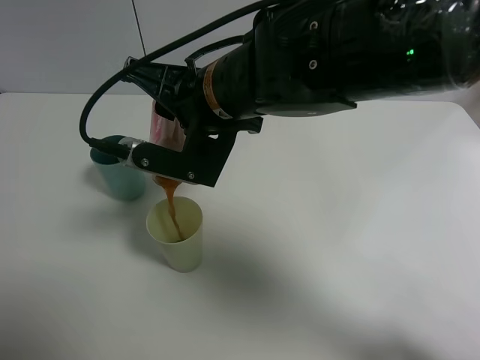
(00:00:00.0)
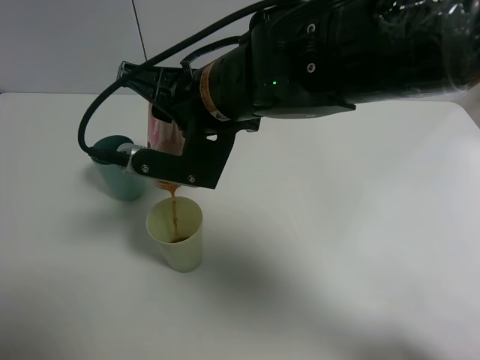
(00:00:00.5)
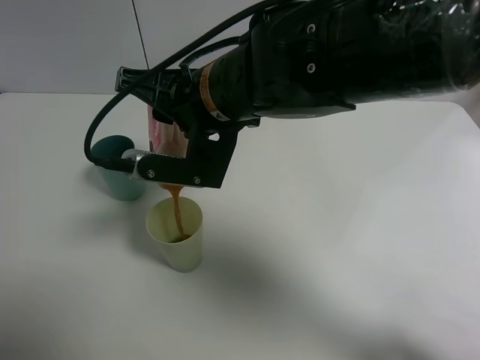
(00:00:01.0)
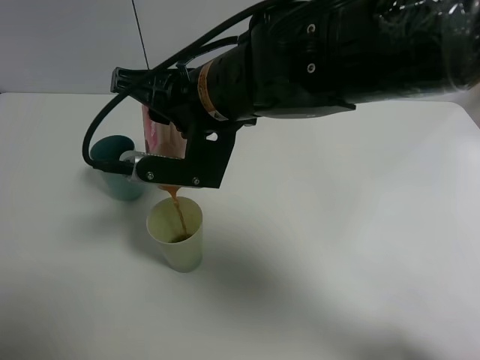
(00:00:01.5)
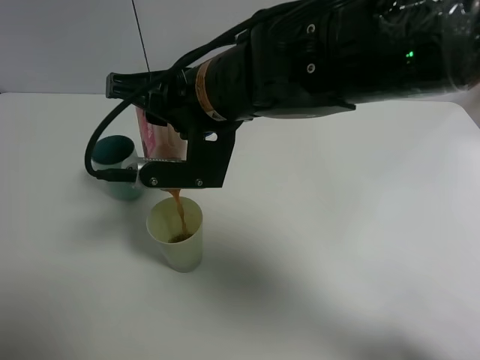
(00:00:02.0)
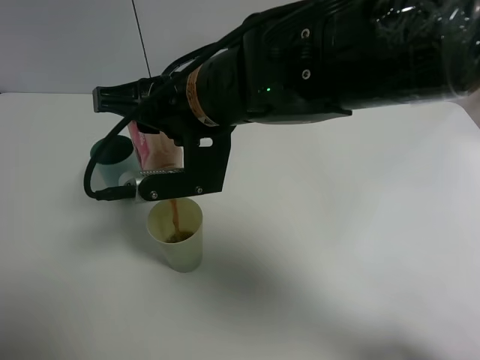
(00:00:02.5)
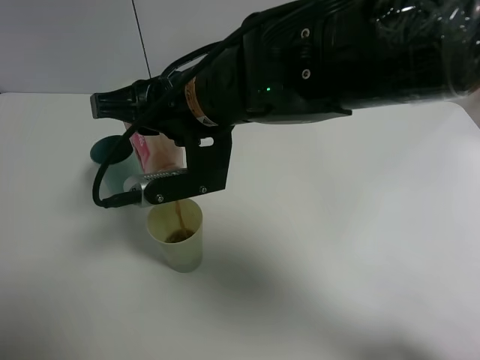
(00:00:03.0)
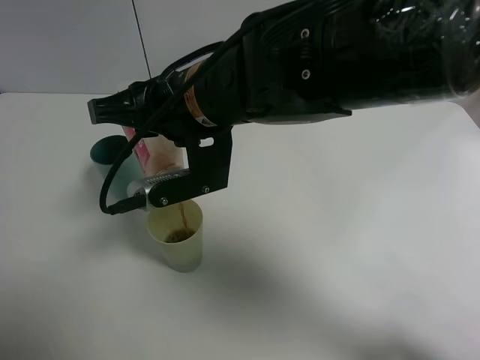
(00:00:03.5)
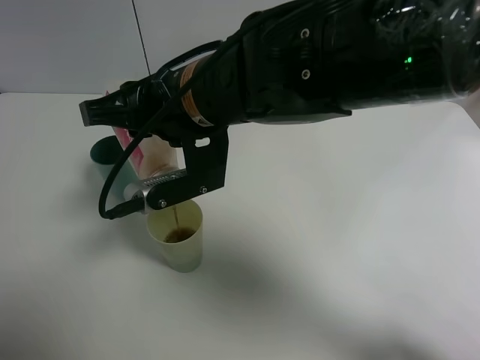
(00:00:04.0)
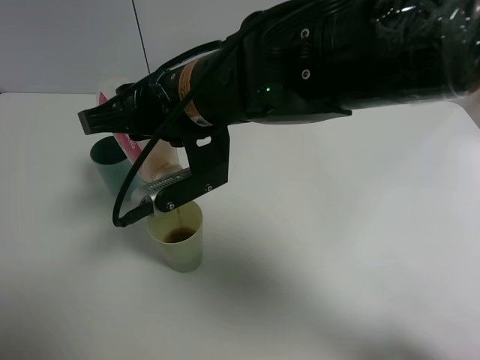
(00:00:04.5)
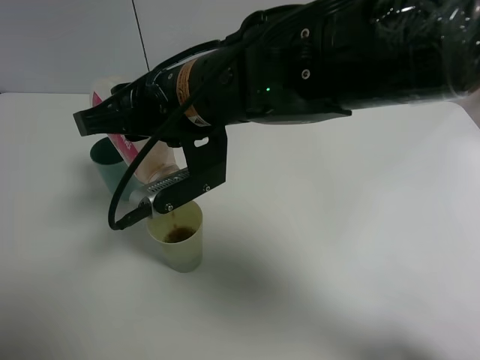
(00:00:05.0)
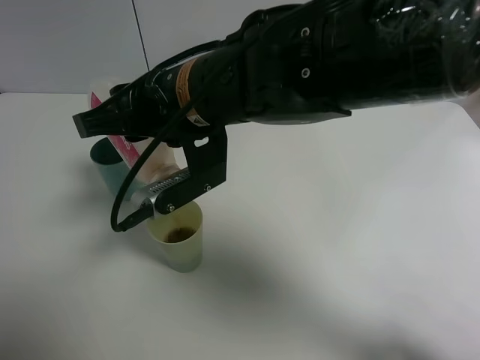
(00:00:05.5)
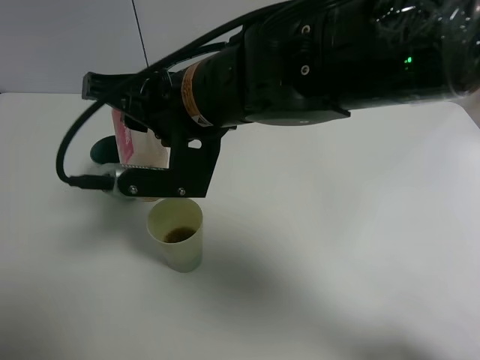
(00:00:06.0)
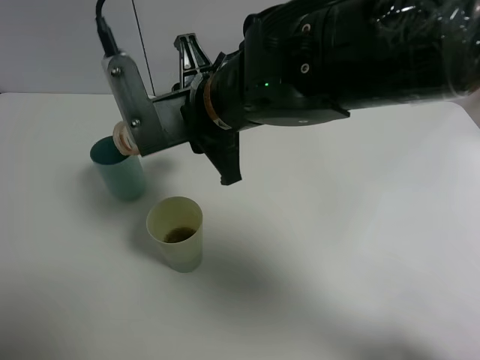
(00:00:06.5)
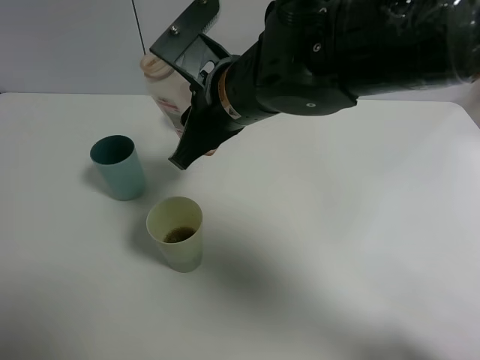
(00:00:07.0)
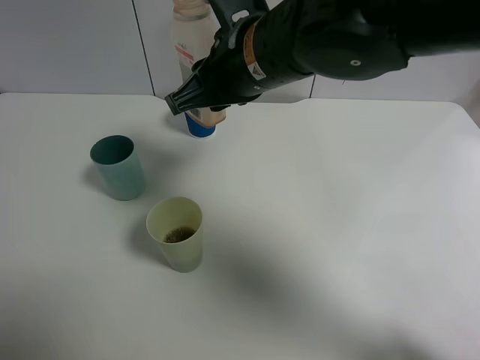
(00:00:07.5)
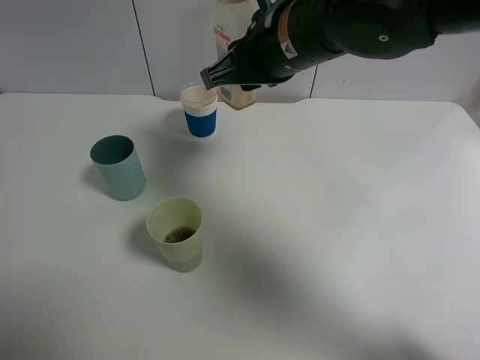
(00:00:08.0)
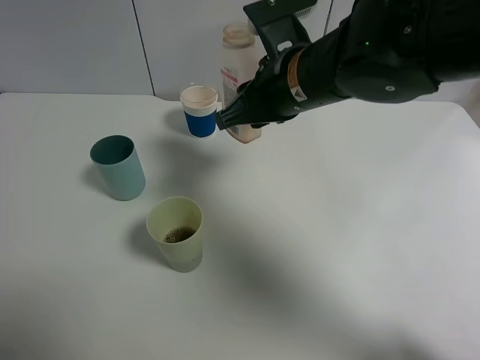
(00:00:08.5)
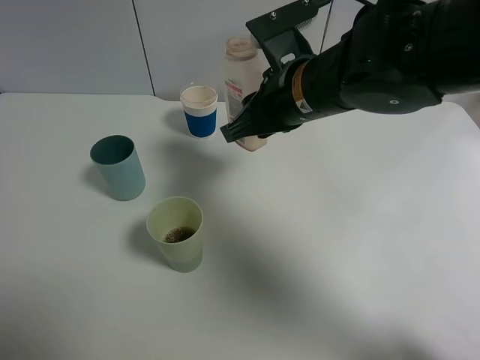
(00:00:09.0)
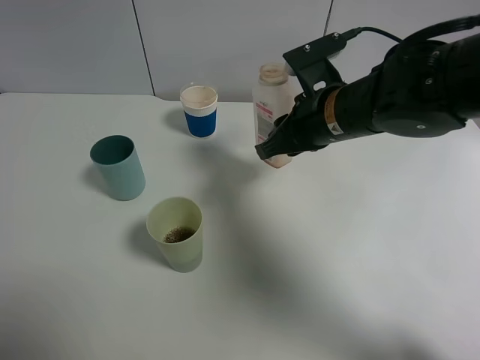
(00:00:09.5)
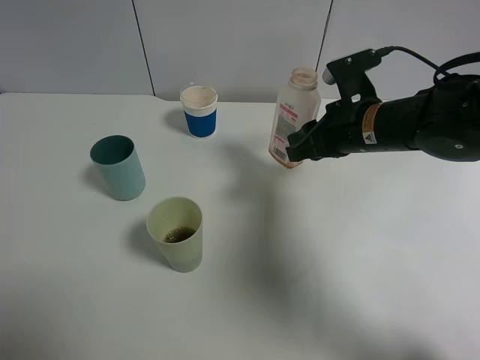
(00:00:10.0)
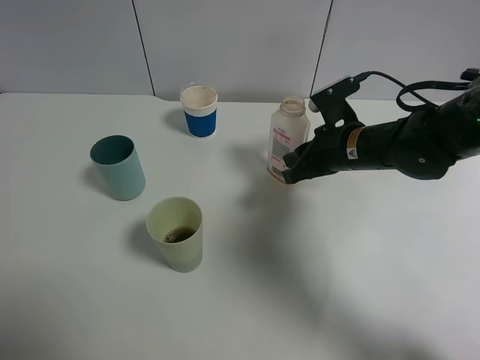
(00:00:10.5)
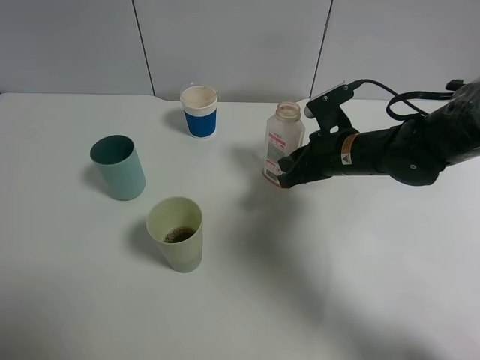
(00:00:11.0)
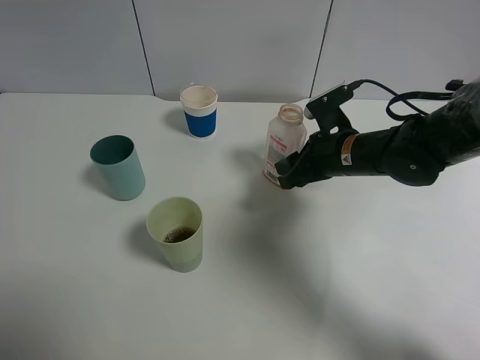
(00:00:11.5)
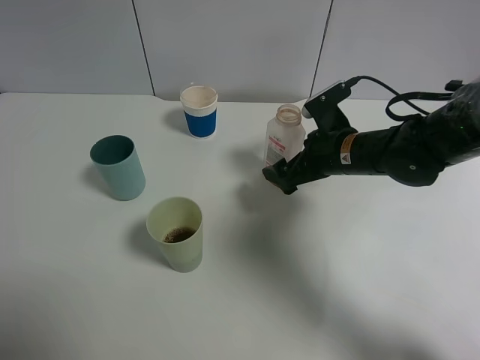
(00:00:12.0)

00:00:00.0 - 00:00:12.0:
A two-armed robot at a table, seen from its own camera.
Task of the whole recording: use a gripper to hold the bottle of the drink and pour it into a random cup.
Step, 00:00:00.0 - 00:00:05.5: Pour the cranberry juice into the cyan cup with the right gripper.
Step, 00:00:06.0 - 00:00:11.5: Place the cranberry juice bottle on the table with the right gripper.
00:00:00.0 - 00:00:02.0: There are only small adjustments of the grippers.
00:00:02.0 - 00:00:04.0: The grippers stay close to where they were, moving slightly.
00:00:06.0 - 00:00:08.0: The right gripper travels to the right and forward by about 10 cm.
00:00:08.0 - 00:00:10.0: The right gripper heads to the right and downward, covering roughly 15 cm.
00:00:10.0 - 00:00:12.0: The right gripper goes roughly 5 cm downward, and opens.

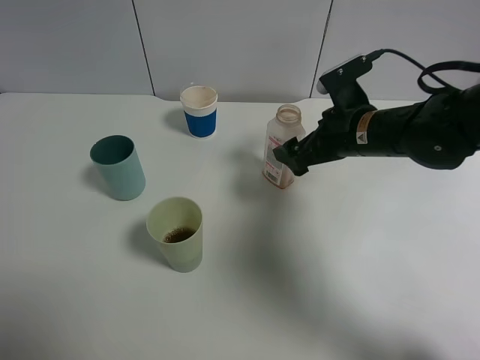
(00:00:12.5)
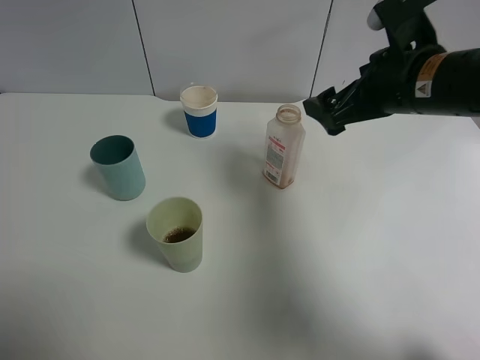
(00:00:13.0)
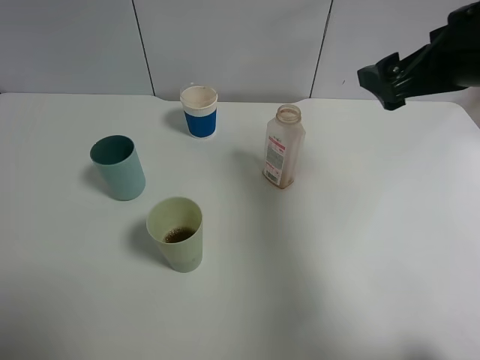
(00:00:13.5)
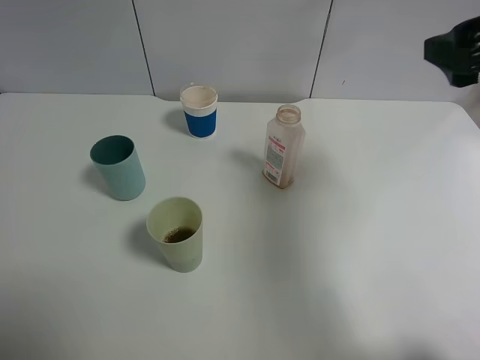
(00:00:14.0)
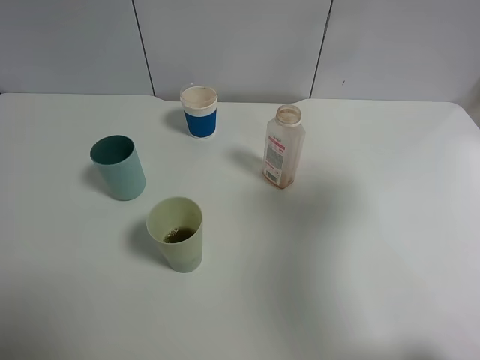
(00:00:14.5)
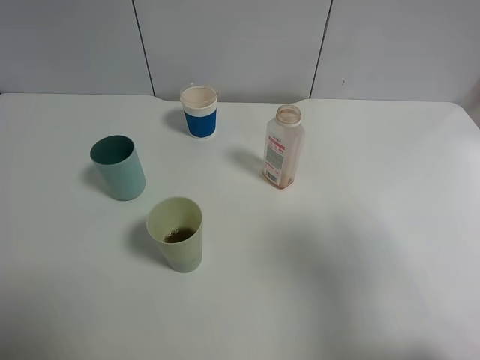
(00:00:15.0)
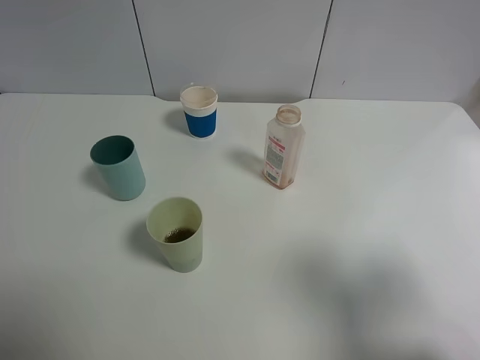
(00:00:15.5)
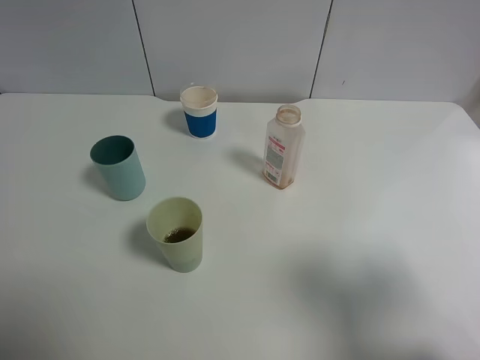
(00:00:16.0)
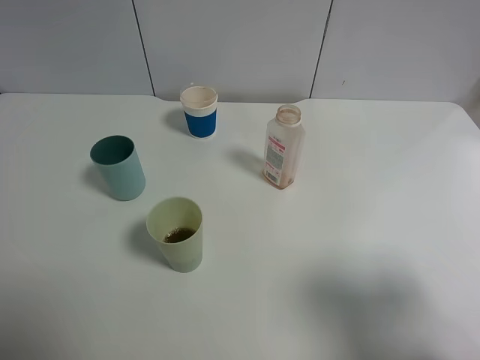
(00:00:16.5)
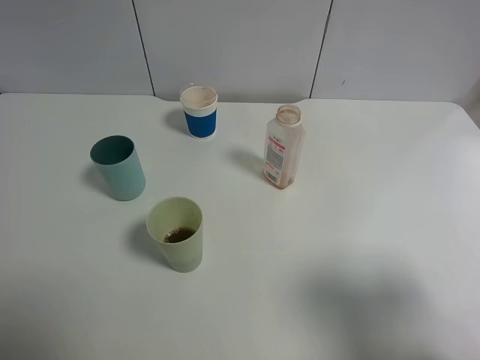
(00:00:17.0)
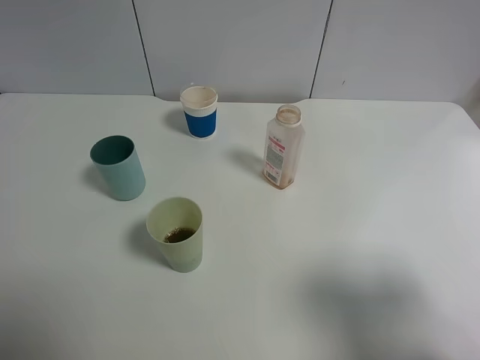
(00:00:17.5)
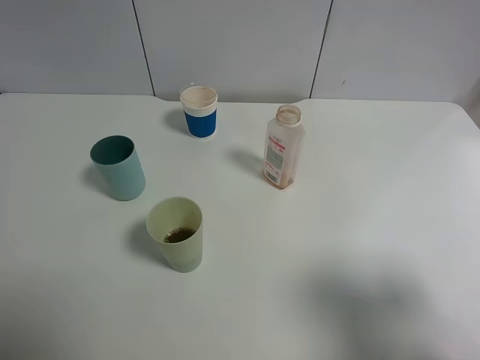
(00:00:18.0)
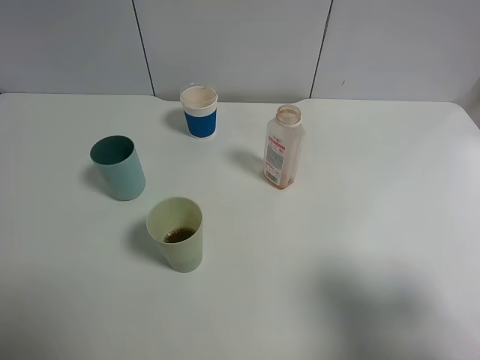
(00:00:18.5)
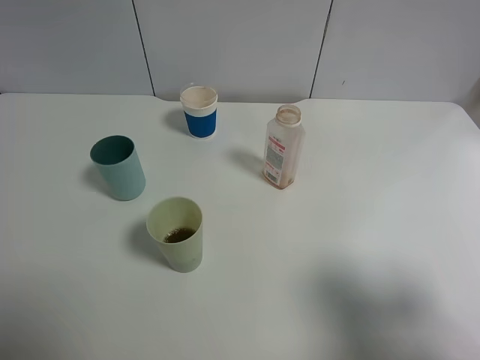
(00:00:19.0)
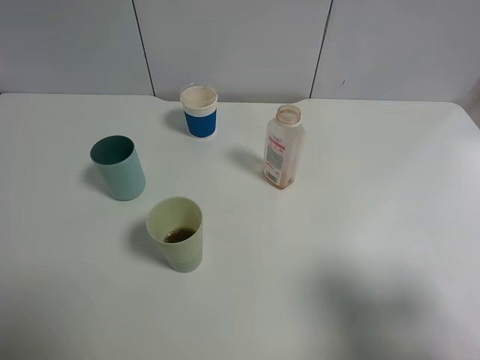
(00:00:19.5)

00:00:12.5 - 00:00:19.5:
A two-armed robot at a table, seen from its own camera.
Task of the whole recording: use a gripper to hold the bottle of the drink and pour it into a random cup.
00:00:12.5 - 00:00:14.5: The right gripper is displaced upward, backward and to the right by some 30 cm.
00:00:14.5 - 00:00:16.0: The right gripper is displaced backward and downward by some 15 cm.

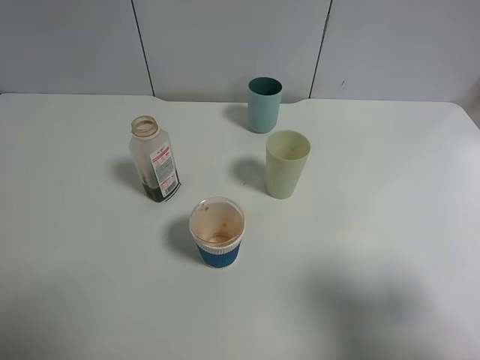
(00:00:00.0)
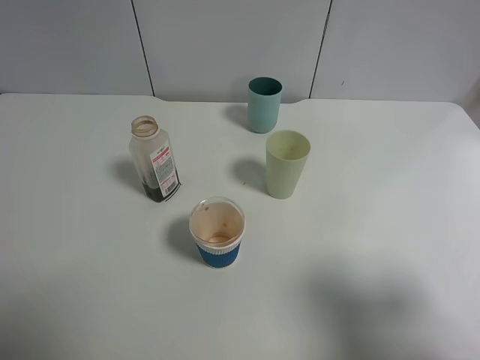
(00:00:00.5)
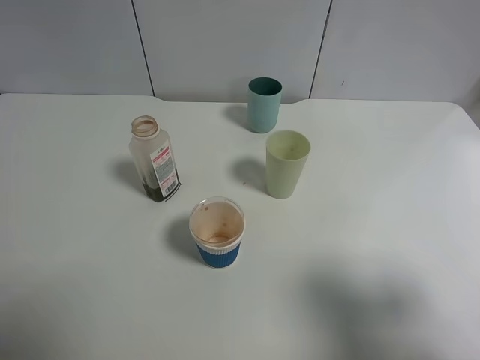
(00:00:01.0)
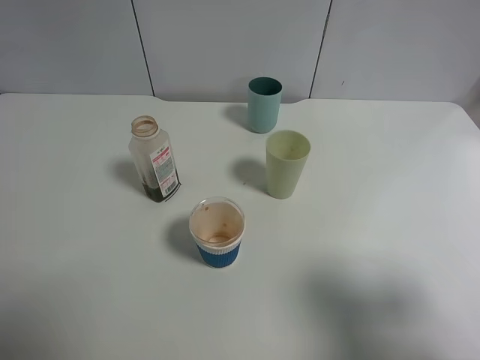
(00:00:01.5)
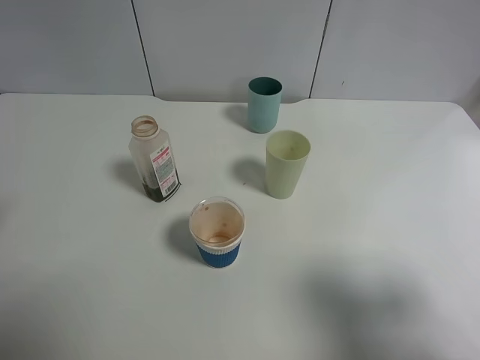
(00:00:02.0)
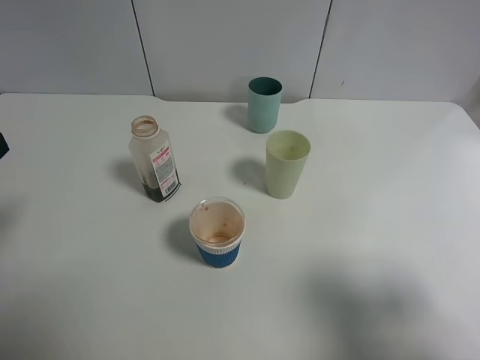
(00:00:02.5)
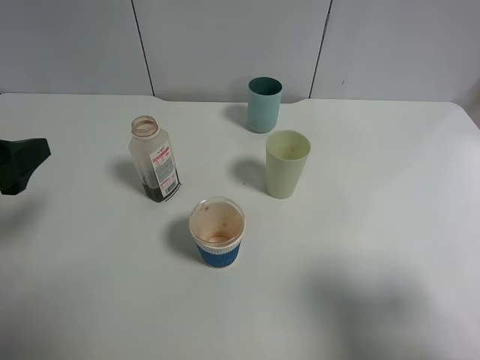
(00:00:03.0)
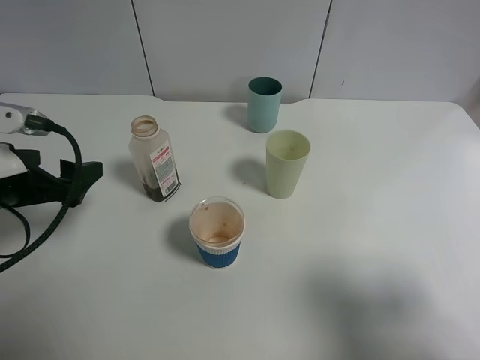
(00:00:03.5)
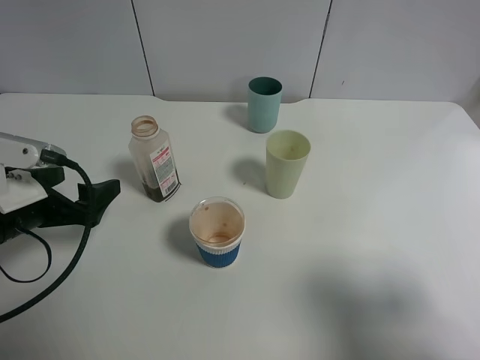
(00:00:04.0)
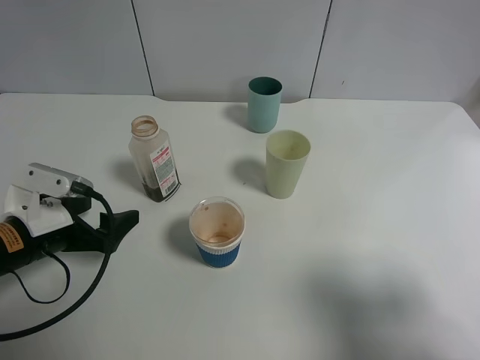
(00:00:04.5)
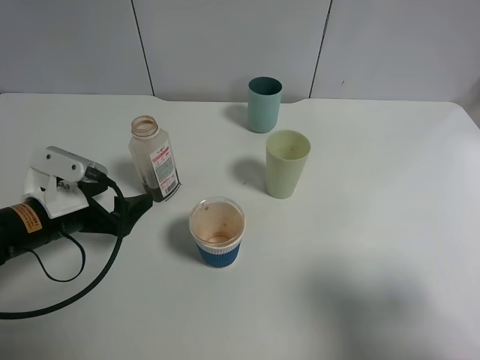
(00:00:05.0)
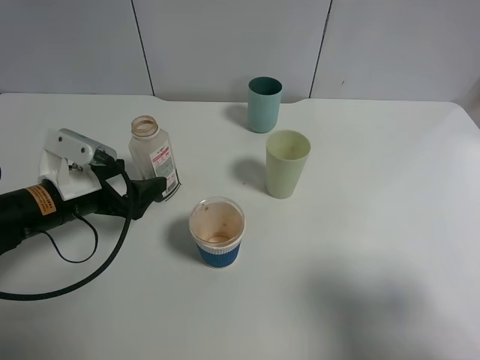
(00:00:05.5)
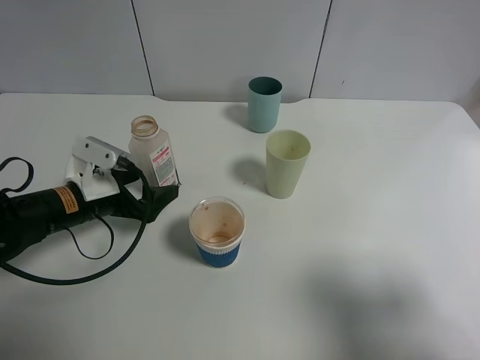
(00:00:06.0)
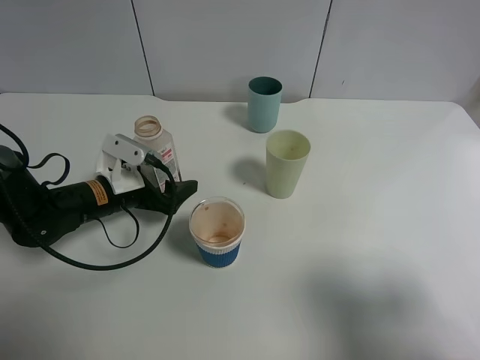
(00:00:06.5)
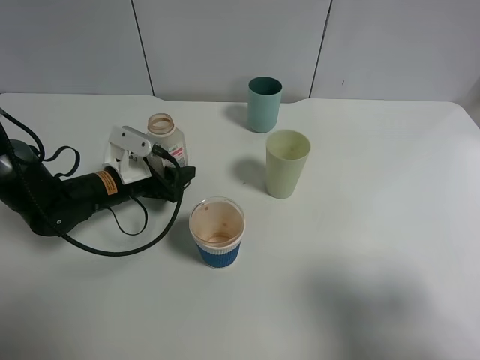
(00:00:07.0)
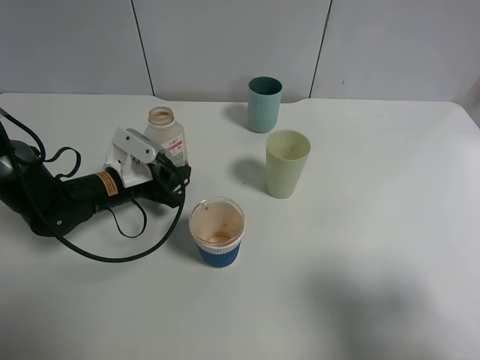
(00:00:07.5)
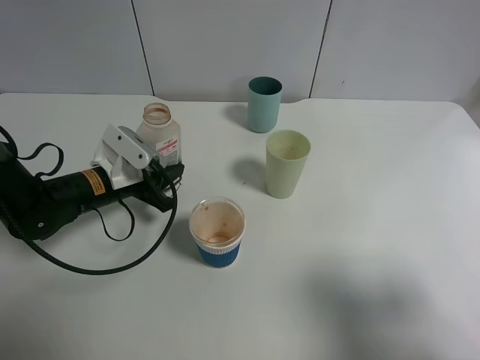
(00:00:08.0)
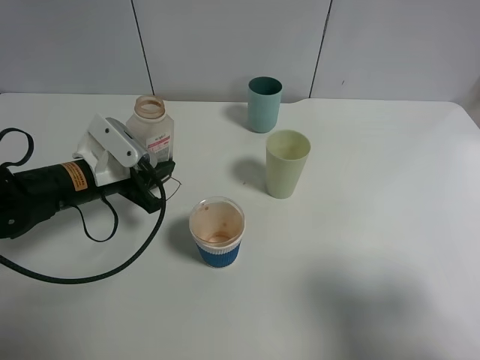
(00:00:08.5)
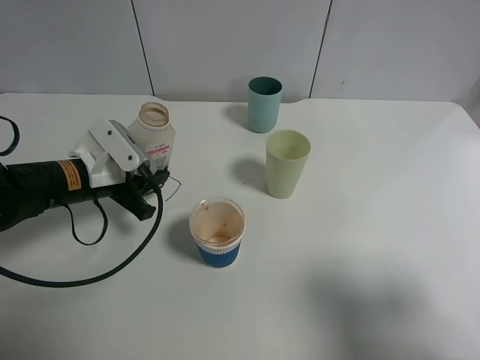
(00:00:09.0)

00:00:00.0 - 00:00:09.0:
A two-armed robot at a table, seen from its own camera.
Task of the whole recording: use a gripper to hold the bottle of the drink and pour it into a random cup.
Step, 00:00:00.0 - 00:00:07.0: Grasp the cranberry juice bottle with the left gripper.
00:00:02.0 - 00:00:04.5: The left gripper shifts some 20 cm downward and forward.
00:00:04.5 - 00:00:07.0: The left gripper travels forward and to the right by roughly 15 cm, and closes up.
00:00:07.0 - 00:00:09.0: The left gripper shifts about 5 cm upward.
